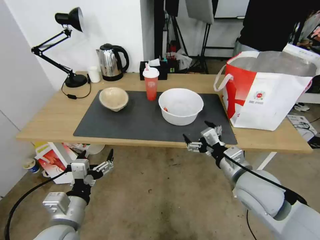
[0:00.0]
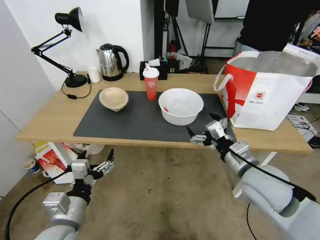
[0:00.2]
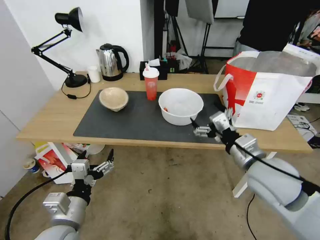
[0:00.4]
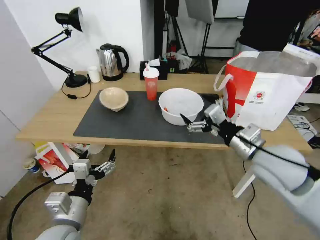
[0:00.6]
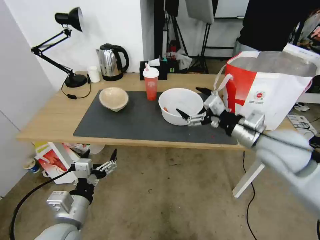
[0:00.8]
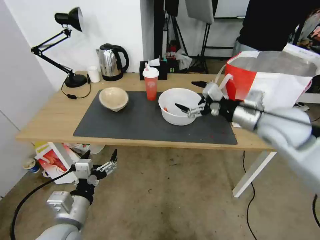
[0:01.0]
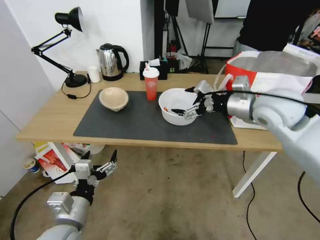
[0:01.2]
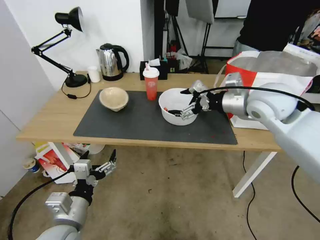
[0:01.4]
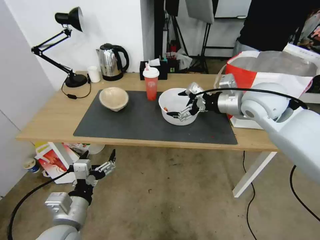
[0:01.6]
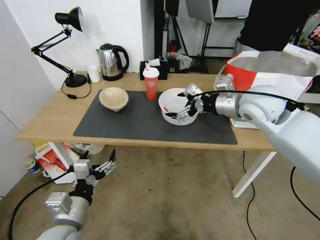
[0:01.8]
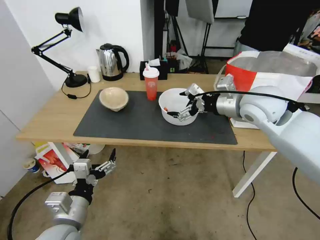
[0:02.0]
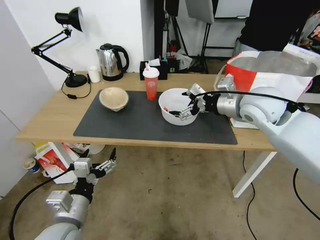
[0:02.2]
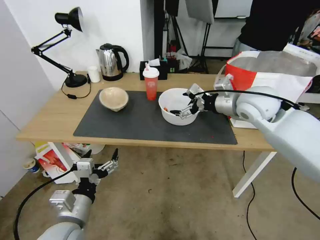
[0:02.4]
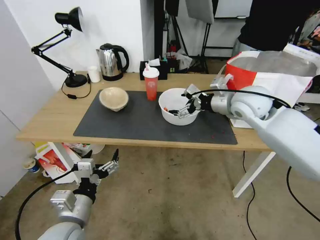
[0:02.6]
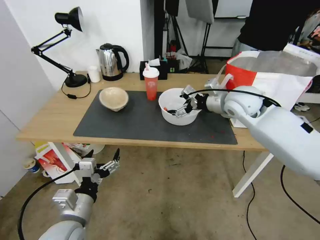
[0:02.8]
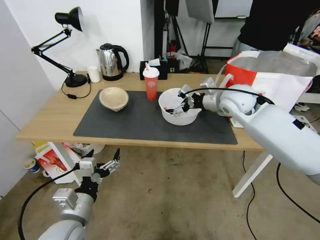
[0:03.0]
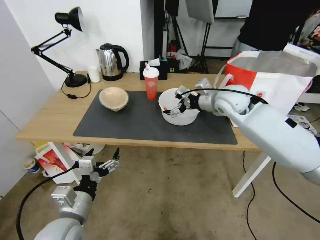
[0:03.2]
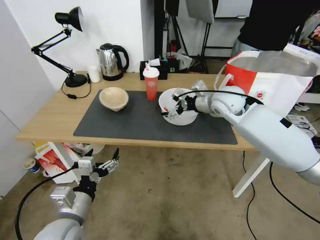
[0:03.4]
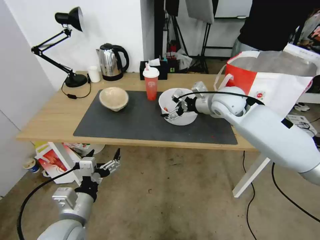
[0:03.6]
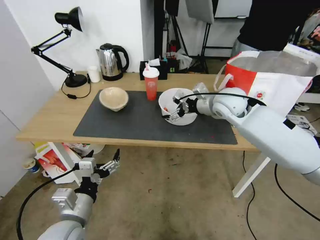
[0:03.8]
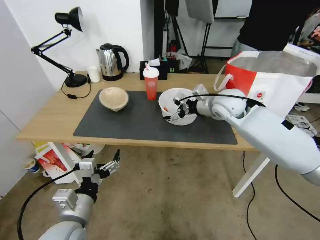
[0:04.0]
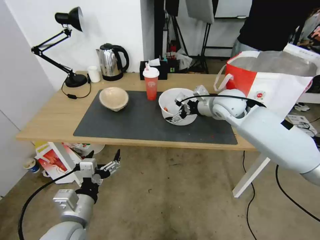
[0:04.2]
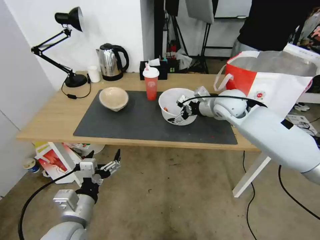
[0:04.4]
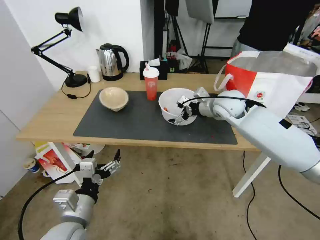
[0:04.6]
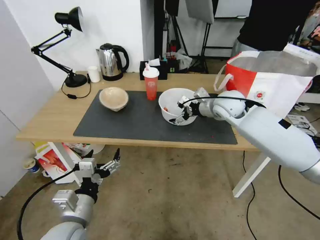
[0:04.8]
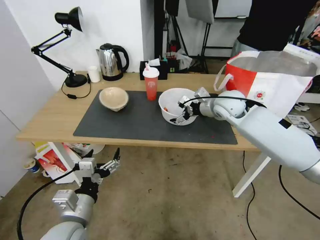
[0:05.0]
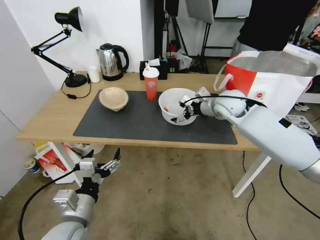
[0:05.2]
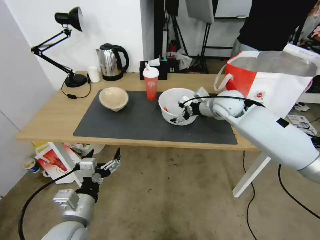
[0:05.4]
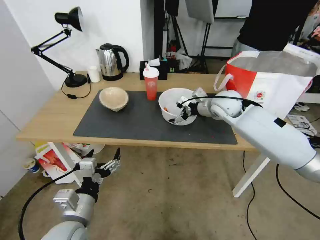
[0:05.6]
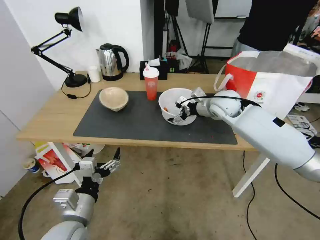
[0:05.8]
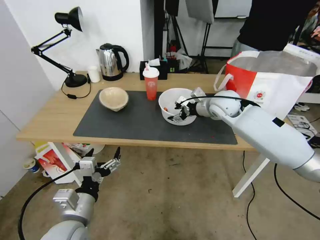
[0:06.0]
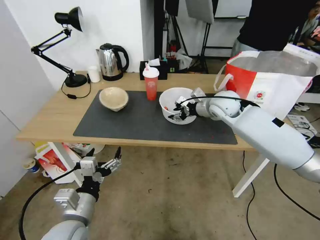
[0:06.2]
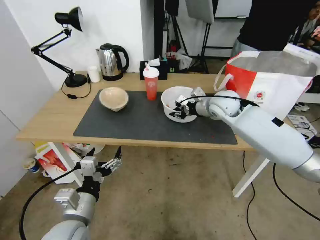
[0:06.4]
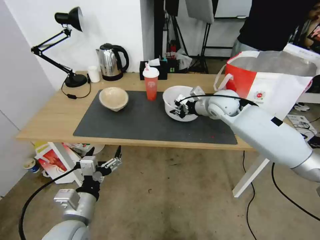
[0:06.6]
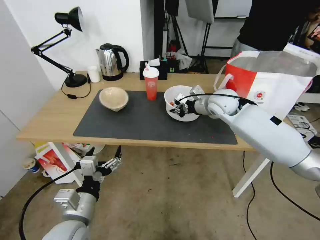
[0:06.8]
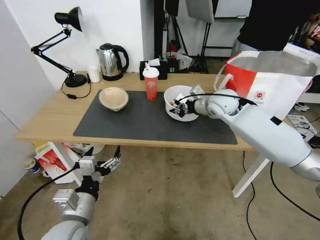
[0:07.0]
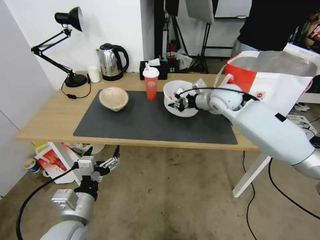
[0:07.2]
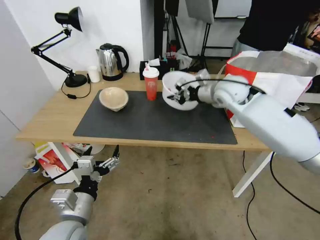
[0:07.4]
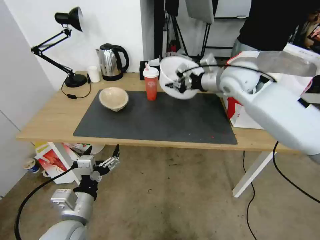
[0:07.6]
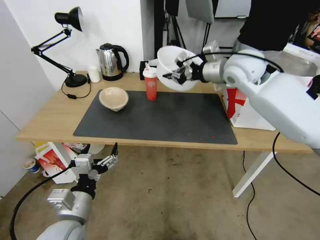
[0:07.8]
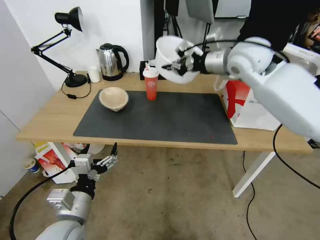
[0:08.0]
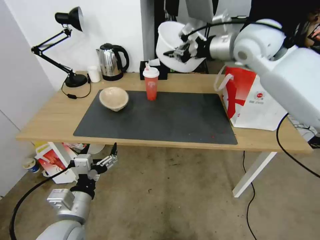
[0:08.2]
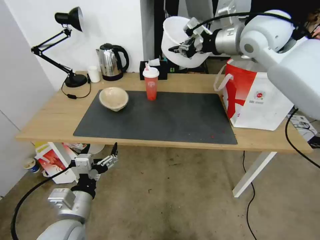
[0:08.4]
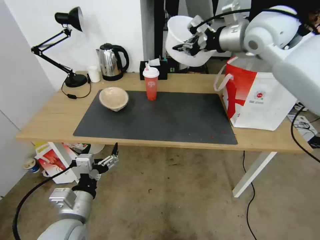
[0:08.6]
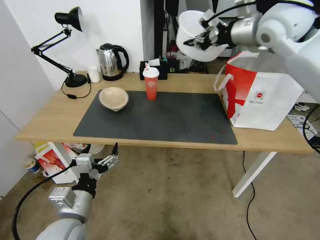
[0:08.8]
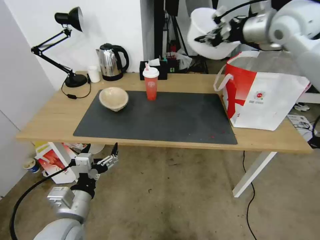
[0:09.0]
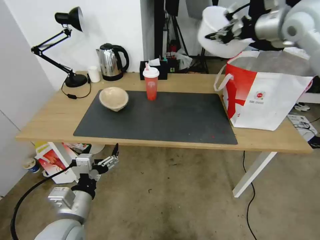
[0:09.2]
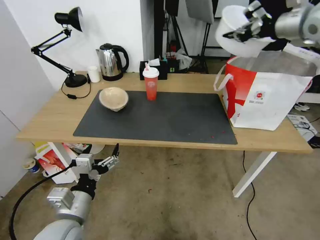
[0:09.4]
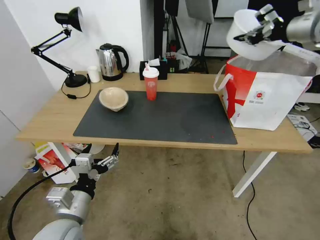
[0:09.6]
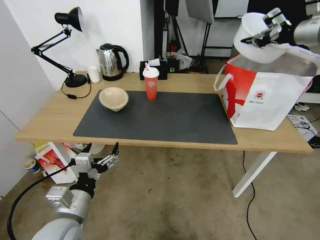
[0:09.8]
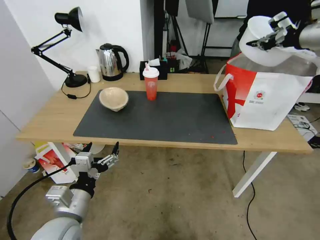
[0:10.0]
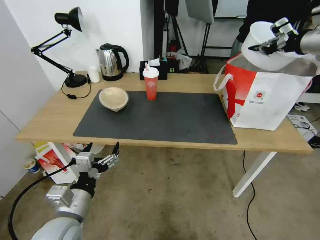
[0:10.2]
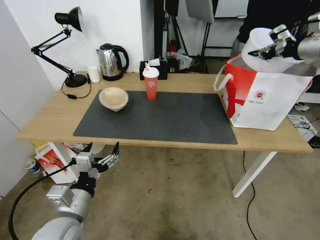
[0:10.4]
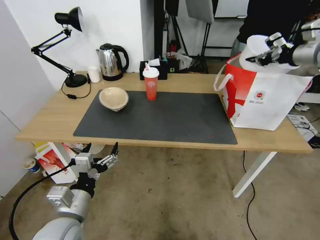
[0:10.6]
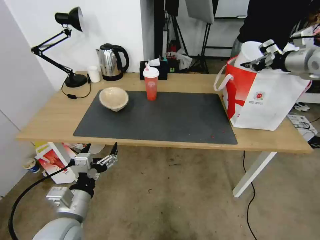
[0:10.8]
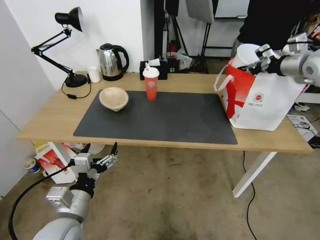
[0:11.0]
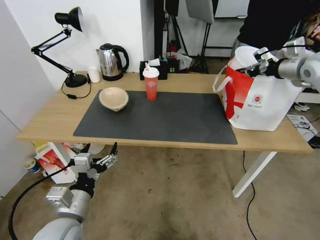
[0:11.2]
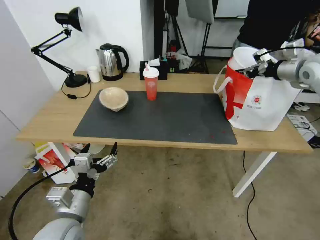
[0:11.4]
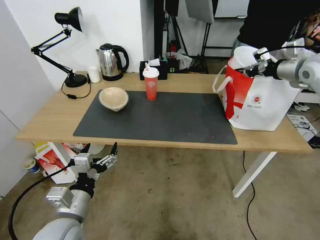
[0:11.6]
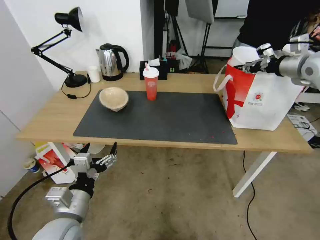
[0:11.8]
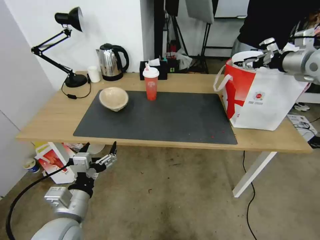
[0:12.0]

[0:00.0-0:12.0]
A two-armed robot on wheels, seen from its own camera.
Task of the whole recording: Pick up the trash from the table and place it into the takeout bag.
0:00.0 to 0:01.6: The right gripper shifts approximately 25 cm forward and upward.
0:01.6 to 0:03.0: The right gripper shifts about 5 cm forward.
0:03.0 to 0:04.4: There are only small adjustments of the grippers.
0:04.4 to 0:06.0: The right gripper closes up.
0:06.0 to 0:07.6: The right gripper shifts about 10 cm upward, and closes up.
0:07.6 to 0:09.0: The right gripper travels upward and to the right by about 15 cm.
0:09.0 to 0:10.4: The right gripper shifts roughly 15 cm to the right.
0:10.4 to 0:12.0: The right gripper opens up.

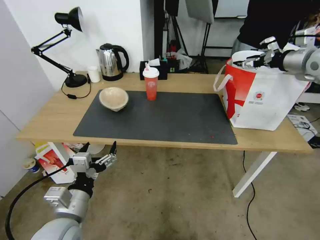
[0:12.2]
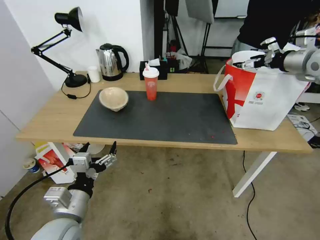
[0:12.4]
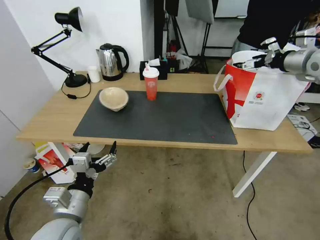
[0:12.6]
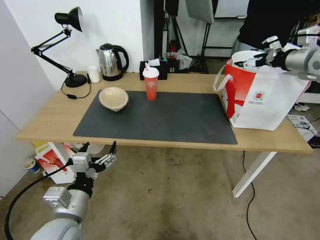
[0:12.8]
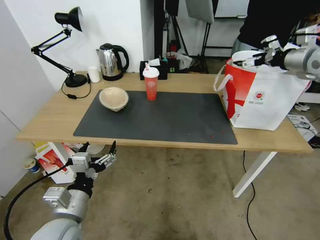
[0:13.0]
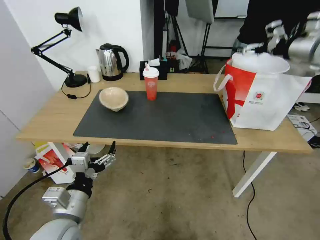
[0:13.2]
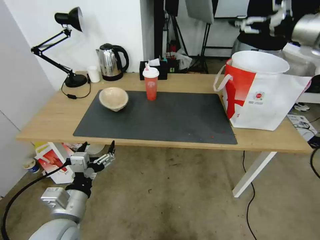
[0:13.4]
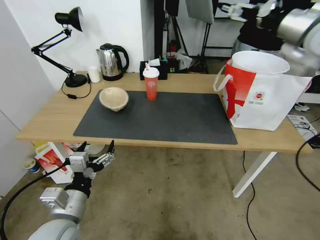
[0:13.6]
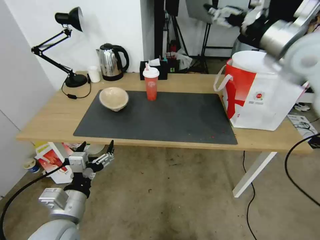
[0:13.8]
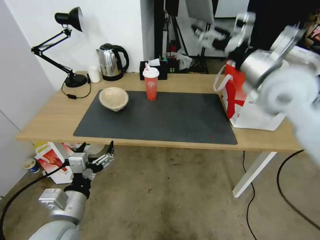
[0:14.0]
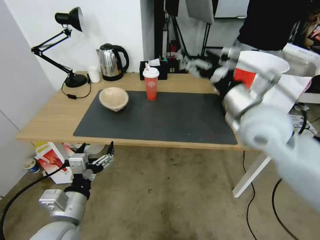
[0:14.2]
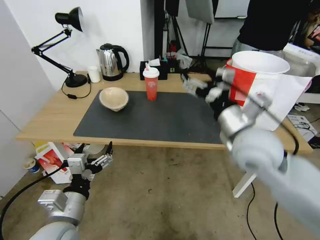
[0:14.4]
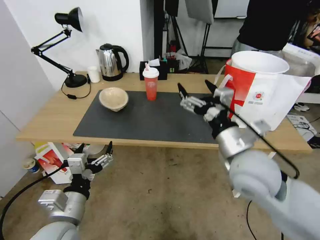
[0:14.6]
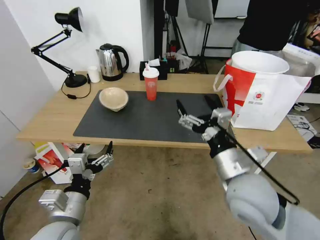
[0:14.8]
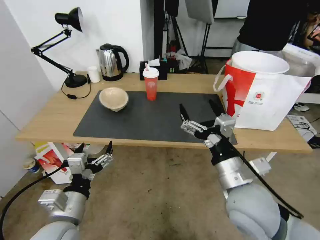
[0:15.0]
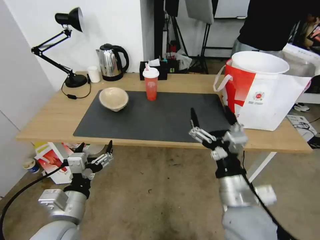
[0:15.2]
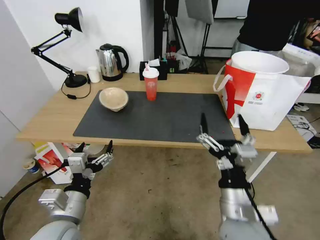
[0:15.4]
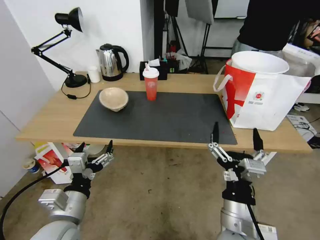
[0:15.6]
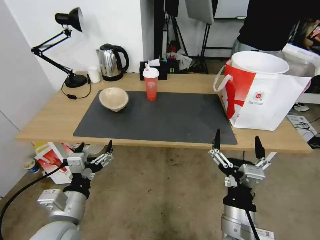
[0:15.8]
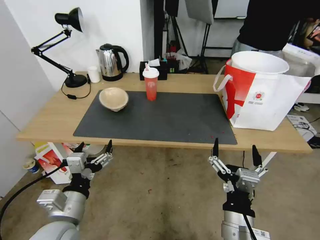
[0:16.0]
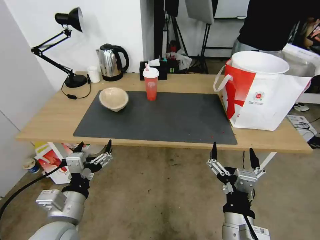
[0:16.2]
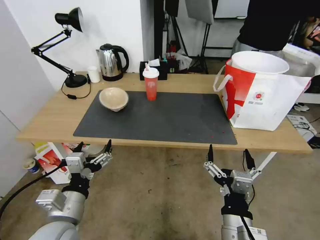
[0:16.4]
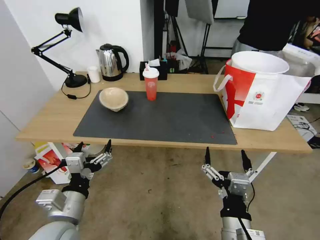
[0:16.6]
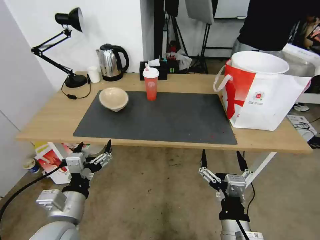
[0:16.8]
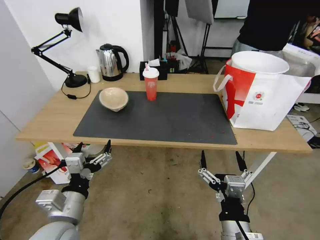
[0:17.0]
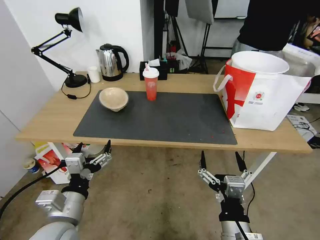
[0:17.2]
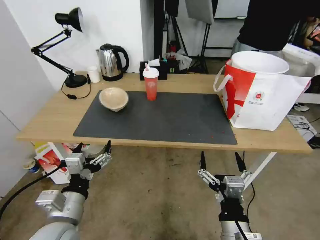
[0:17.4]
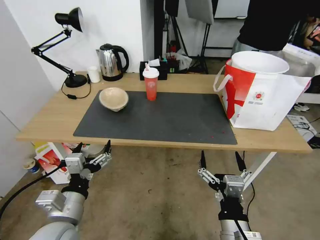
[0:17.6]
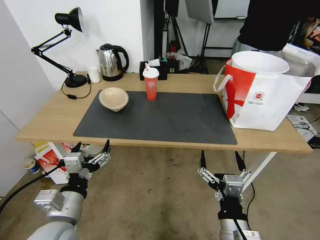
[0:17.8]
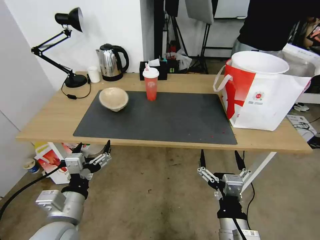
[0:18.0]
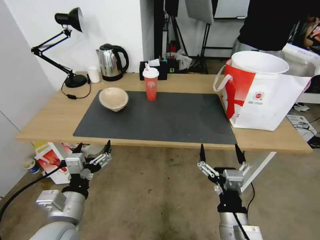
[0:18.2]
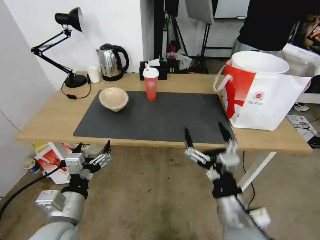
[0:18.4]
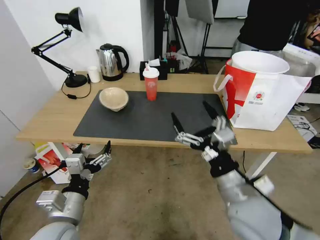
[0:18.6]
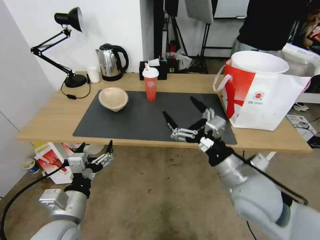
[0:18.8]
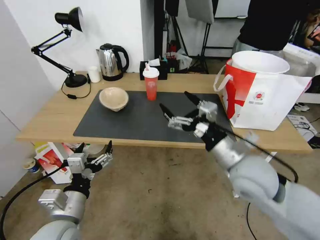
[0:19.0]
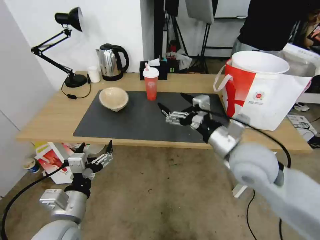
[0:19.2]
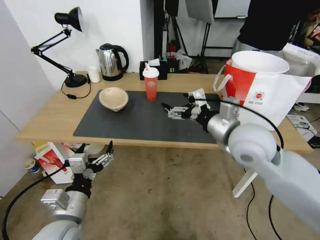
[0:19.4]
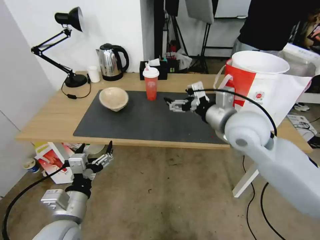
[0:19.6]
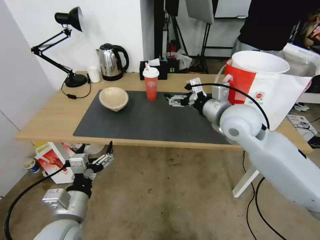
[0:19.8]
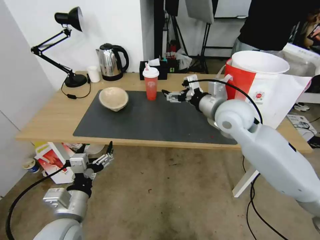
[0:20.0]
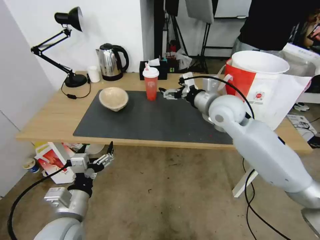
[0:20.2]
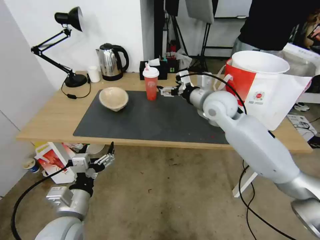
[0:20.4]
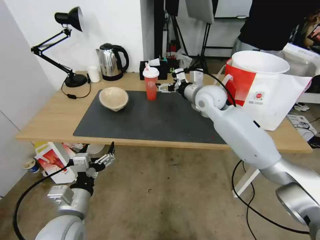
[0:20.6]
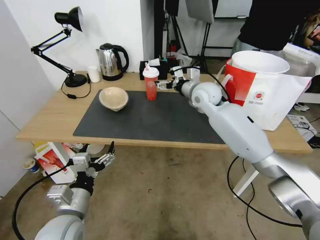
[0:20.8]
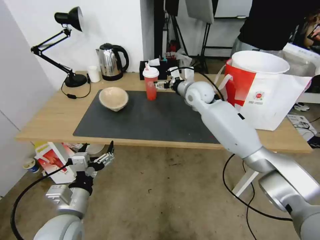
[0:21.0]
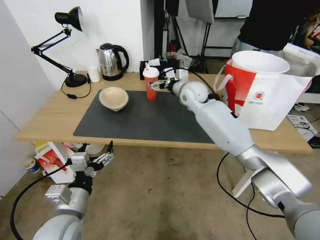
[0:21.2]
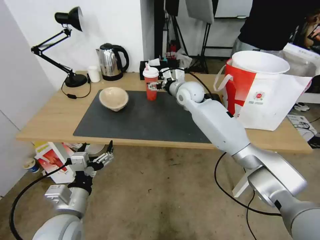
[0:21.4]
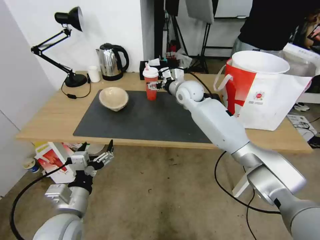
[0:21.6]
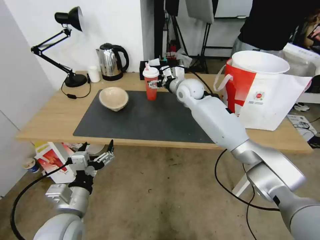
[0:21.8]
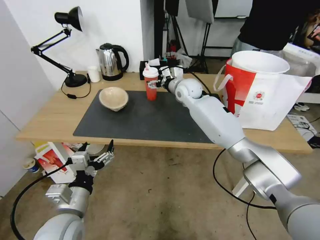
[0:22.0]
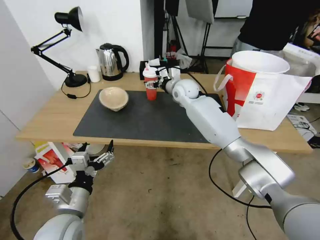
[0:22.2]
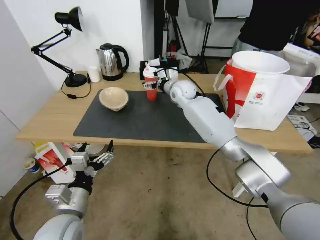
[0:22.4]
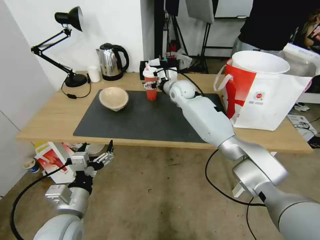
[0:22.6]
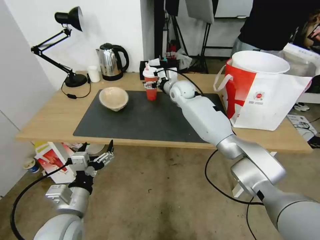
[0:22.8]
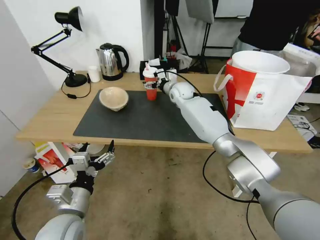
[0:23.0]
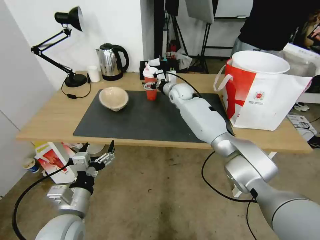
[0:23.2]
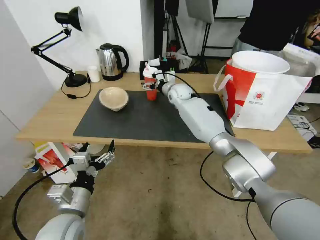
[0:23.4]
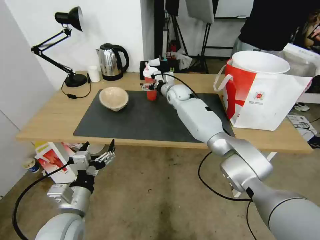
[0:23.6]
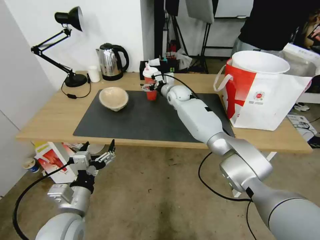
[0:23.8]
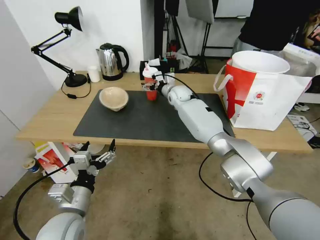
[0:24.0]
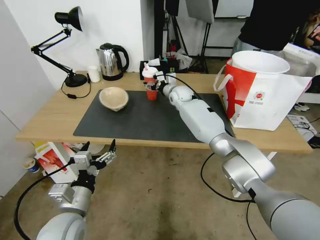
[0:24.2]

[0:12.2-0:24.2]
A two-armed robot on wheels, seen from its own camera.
Task of the whole recording: Pick up the trash from the table and place it into the takeout bag.
0:12.2 to 0:13.8: The right gripper moves to the left and backward, approximately 15 cm.
0:13.8 to 0:15.2: The right gripper moves downward, backward and to the left, roughly 35 cm.
0:15.2 to 0:16.6: The right gripper is displaced backward and downward by some 15 cm.
0:16.6 to 0:18.2: The grippers move only a little.
0:18.2 to 0:19.8: The right gripper travels forward and upward by about 35 cm.
0:19.8 to 0:21.2: The right gripper travels forward and to the left by some 20 cm.
0:21.2 to 0:22.6: The right gripper moves about 5 cm.
0:22.6 to 0:24.2: The right gripper changes place by some 5 cm.
